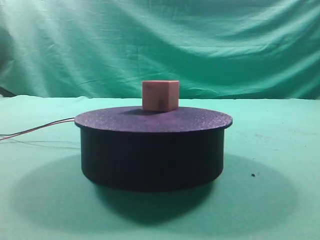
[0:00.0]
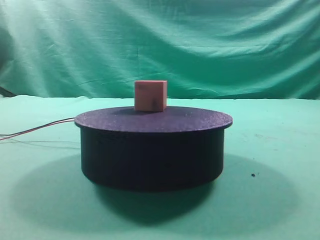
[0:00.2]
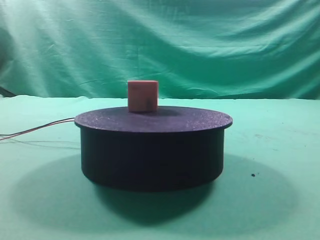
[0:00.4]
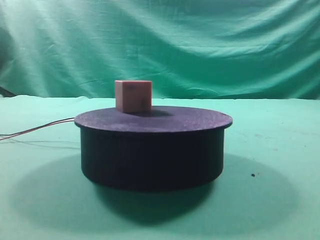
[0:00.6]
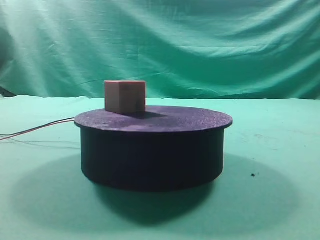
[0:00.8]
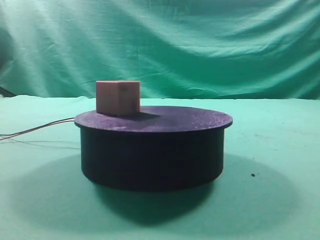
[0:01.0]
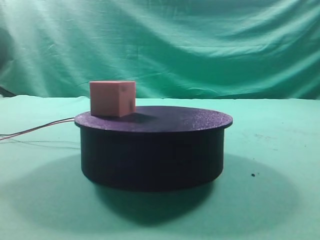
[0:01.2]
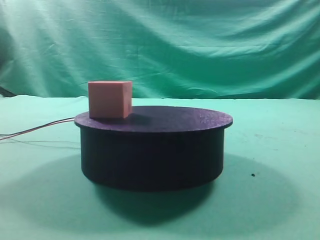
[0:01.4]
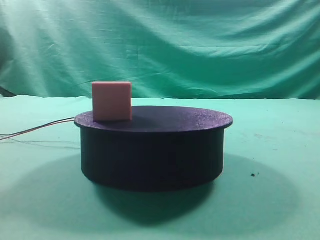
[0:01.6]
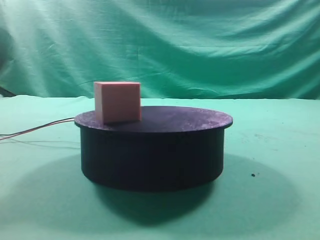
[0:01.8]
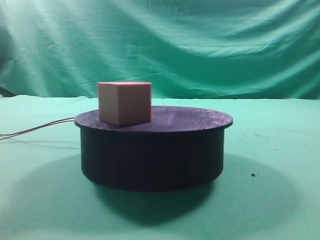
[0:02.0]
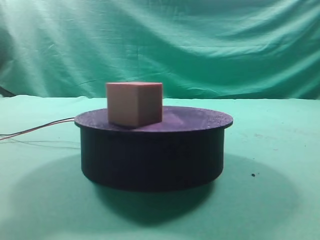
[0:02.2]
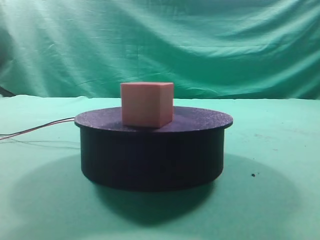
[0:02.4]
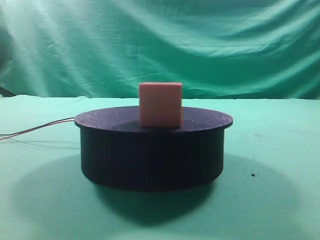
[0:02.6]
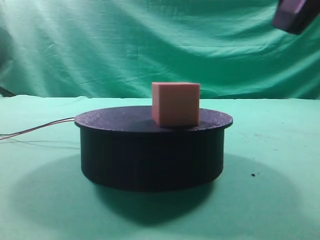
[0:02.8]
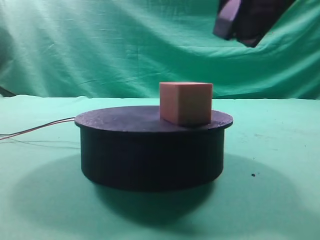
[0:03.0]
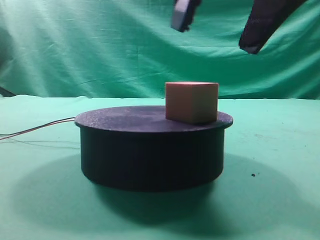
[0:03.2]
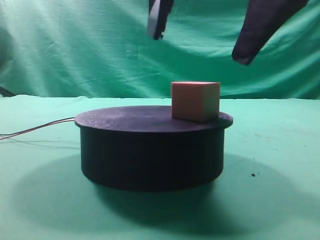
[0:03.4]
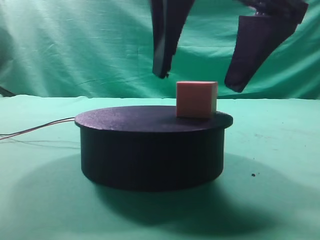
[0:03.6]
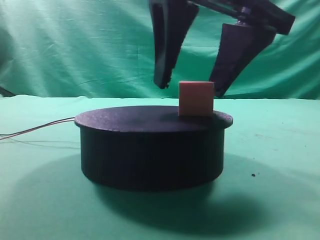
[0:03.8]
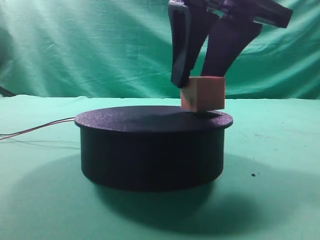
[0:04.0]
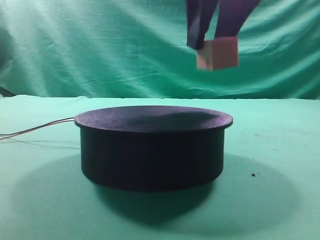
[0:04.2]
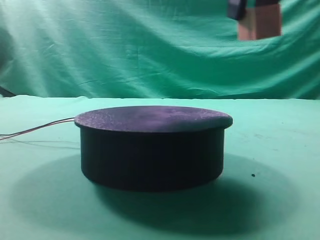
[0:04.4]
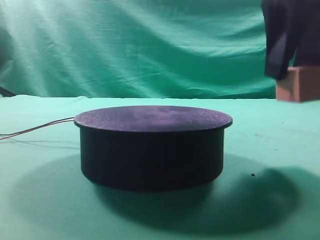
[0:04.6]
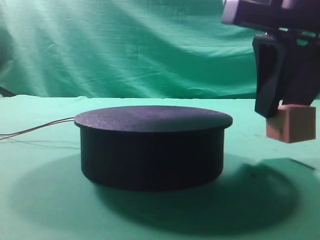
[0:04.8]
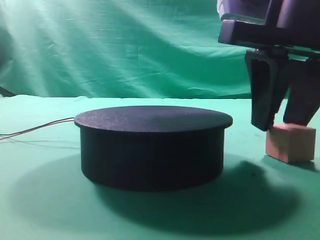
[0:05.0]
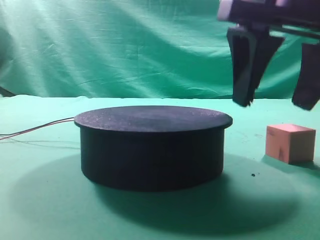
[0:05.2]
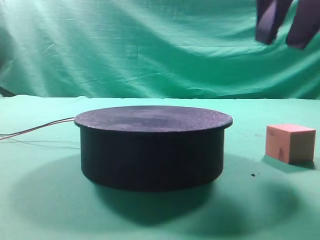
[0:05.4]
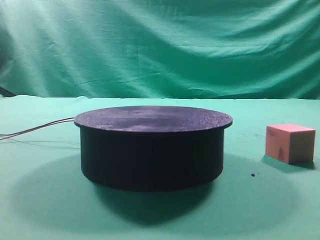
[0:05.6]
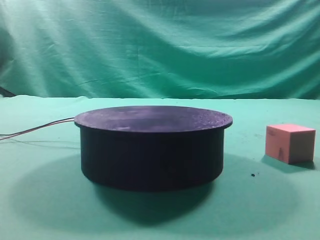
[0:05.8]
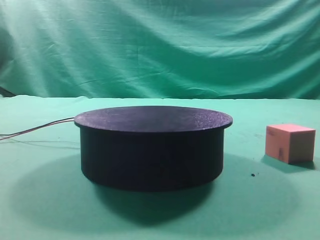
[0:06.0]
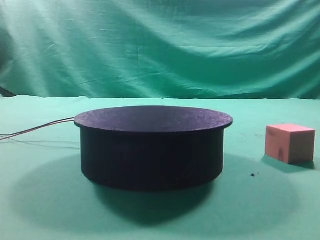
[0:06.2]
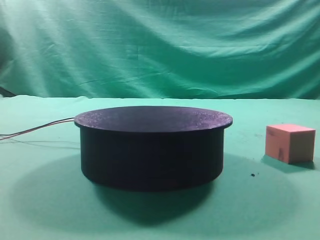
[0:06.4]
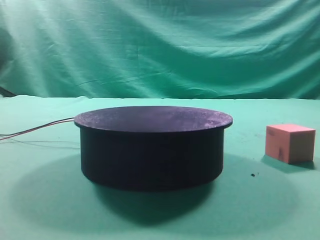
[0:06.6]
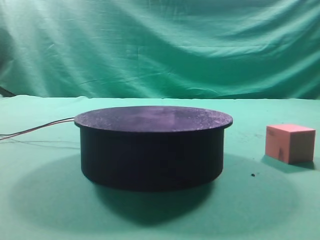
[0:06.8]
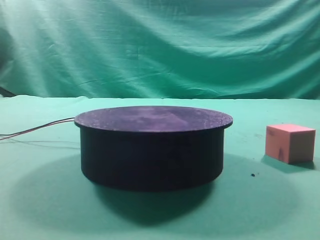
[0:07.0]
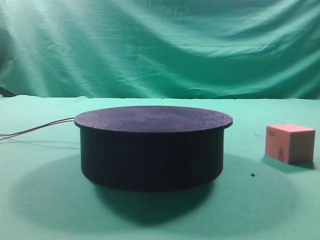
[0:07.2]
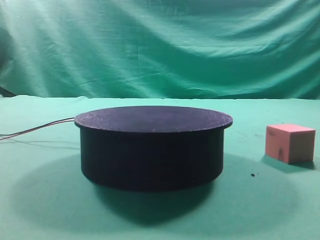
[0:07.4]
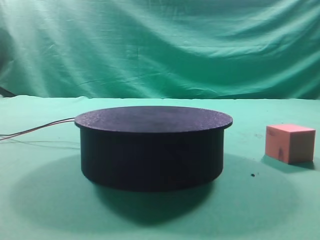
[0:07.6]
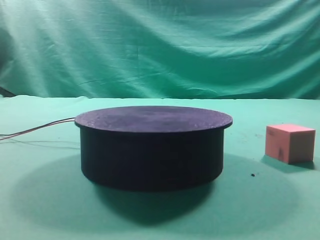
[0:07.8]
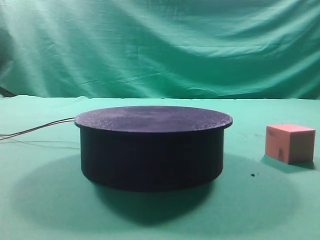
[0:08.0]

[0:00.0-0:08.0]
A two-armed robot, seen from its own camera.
Task of the whole recording: grasp the rotating cube-shaped block on the turntable and place it on the table.
Step, 0:00.0 to 0:04.0: Grasp the rotating cube-shaped block on the turntable.
Step, 0:04.2 to 0:05.0: Place the cube on the desk.
